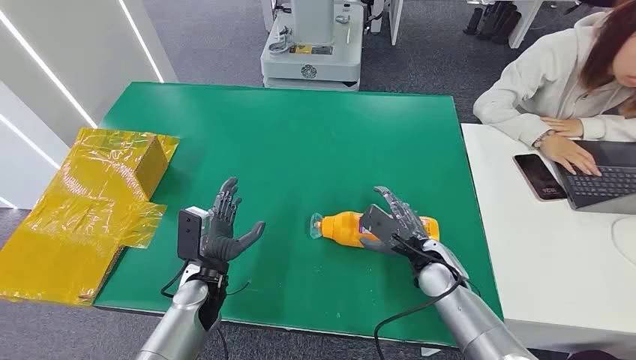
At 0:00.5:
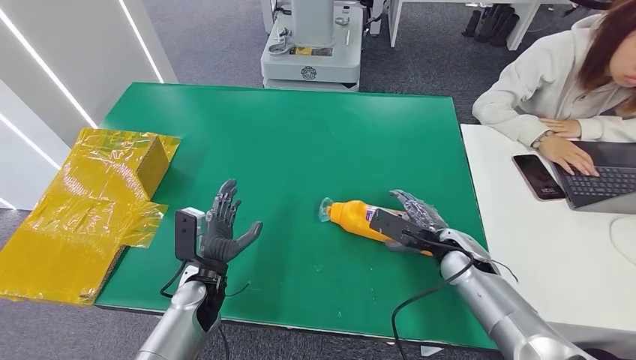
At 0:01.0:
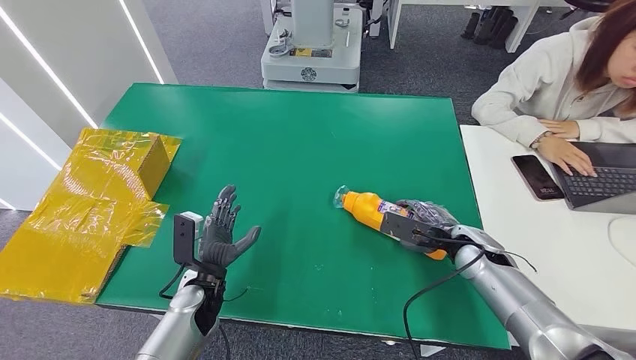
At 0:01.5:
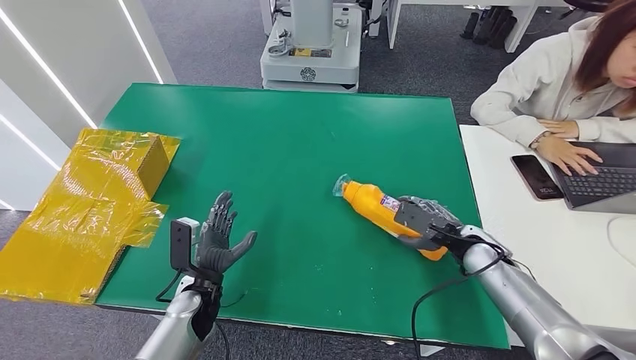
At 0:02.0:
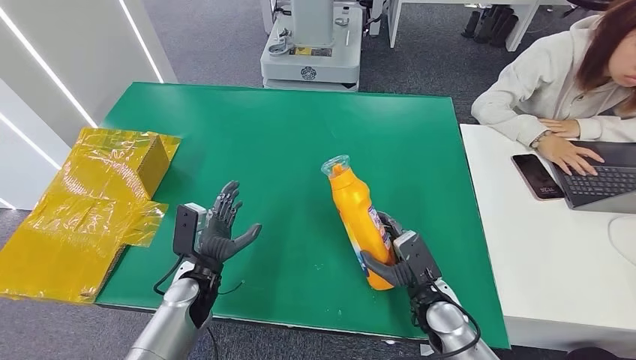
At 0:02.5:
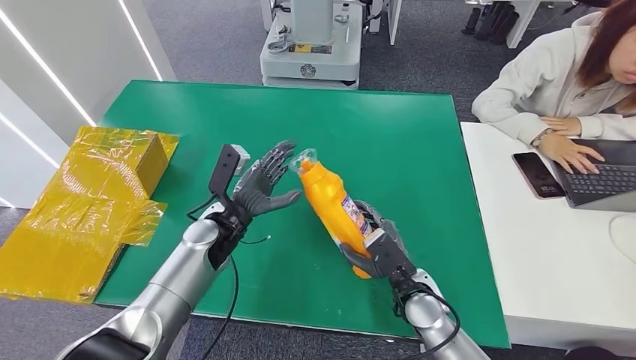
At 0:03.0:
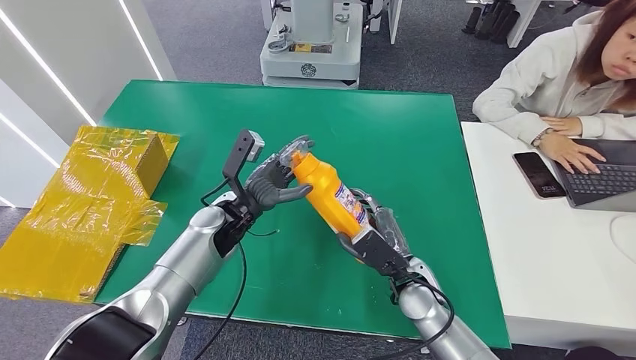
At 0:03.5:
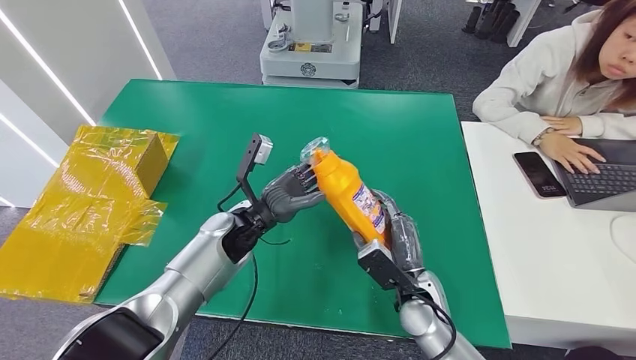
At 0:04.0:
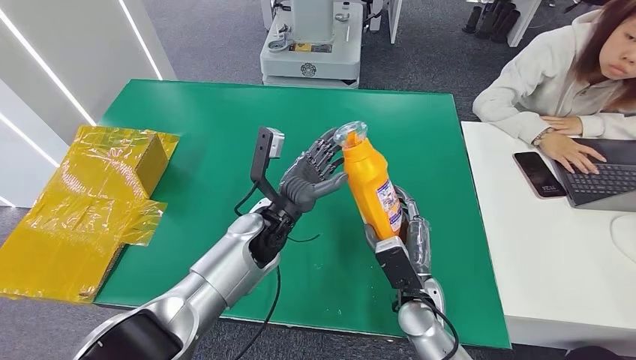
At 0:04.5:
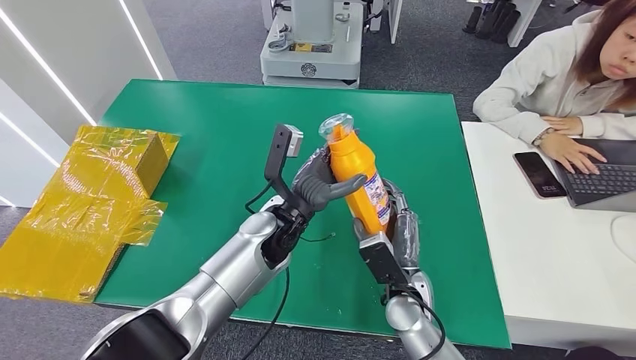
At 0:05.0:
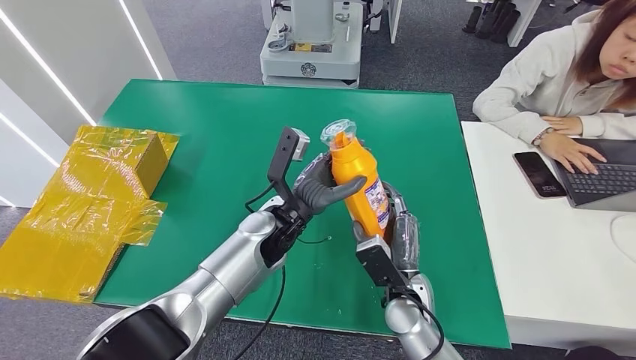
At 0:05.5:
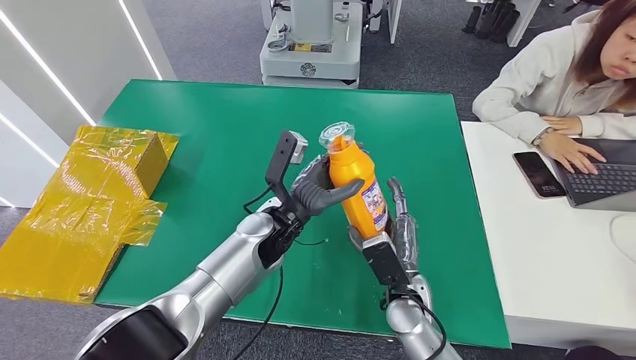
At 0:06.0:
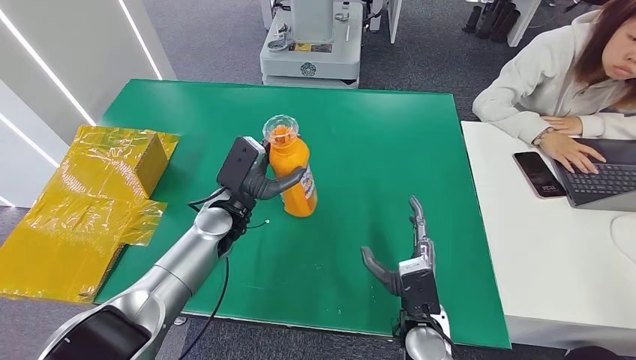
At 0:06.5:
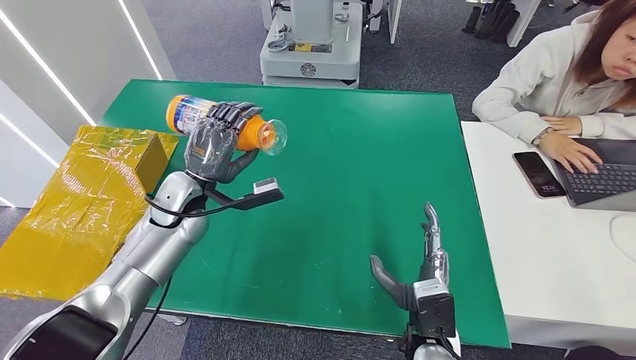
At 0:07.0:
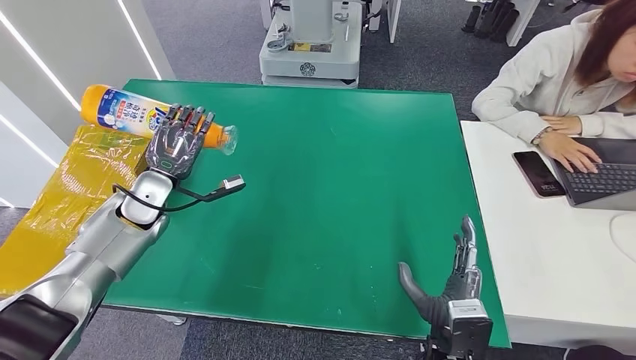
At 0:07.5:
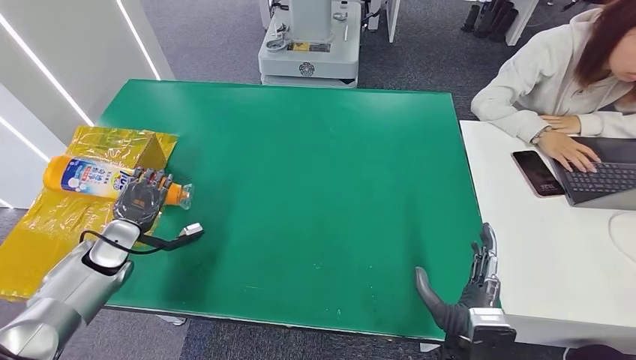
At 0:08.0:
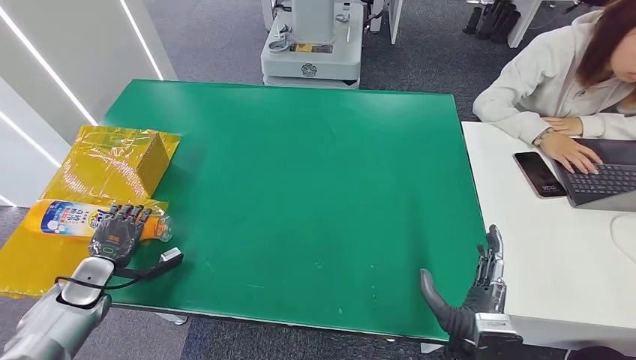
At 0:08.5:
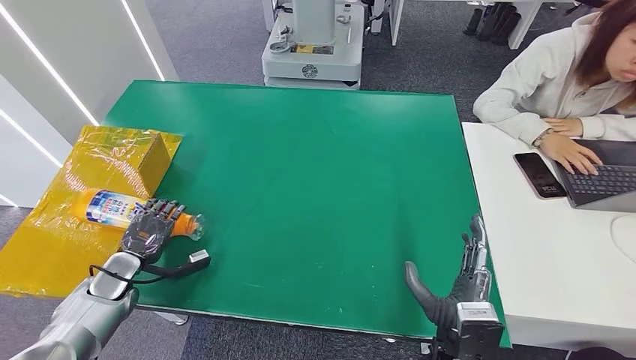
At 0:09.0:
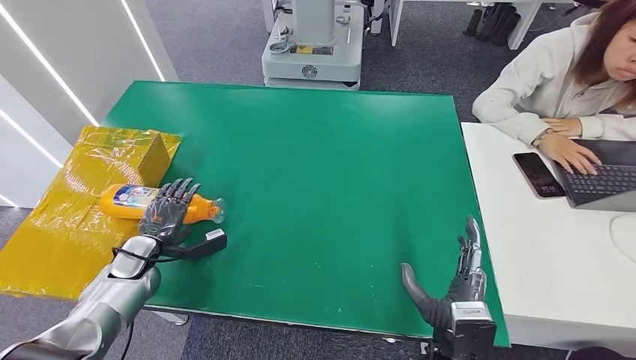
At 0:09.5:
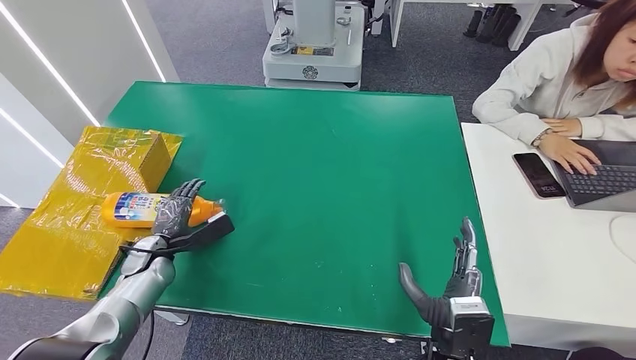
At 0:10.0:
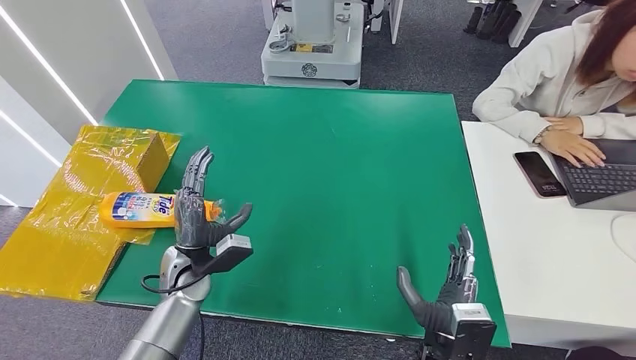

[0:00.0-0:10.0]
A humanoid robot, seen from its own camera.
Step, 0:00.0 to 0:02.5: Pick up the bottle from the table.
Step, 0:03.0 to 0:10.0: Turn the bottle to the front side.
0:04.0 to 0:06.0: The left hand shifts about 10 cm to the left.
0:06.0 to 0:08.0: The left hand heads to the left and downward, covering roughly 30 cm, while the right hand moves backward, about 5 cm.
0:08.0 to 0:10.0: The left hand shifts about 20 cm to the right.

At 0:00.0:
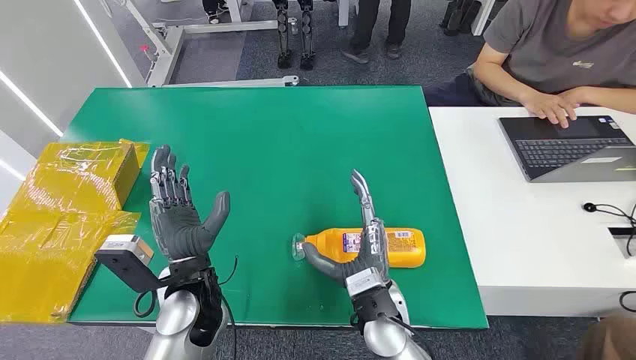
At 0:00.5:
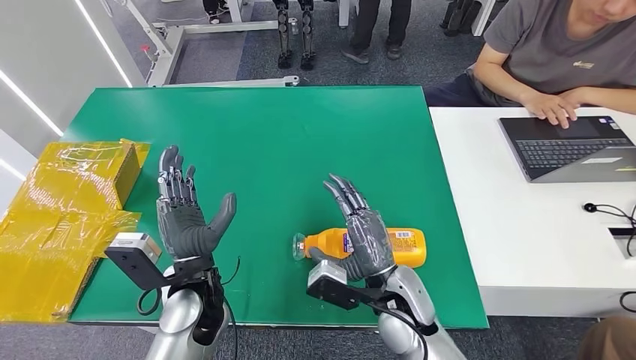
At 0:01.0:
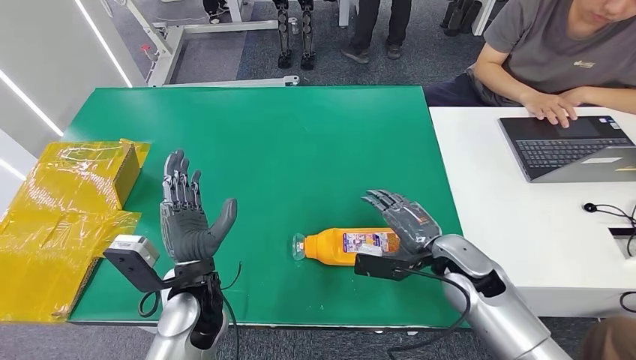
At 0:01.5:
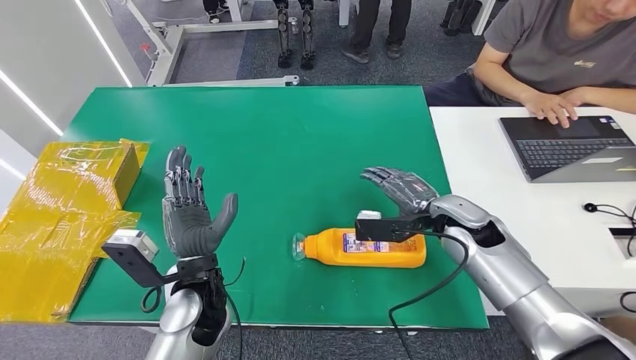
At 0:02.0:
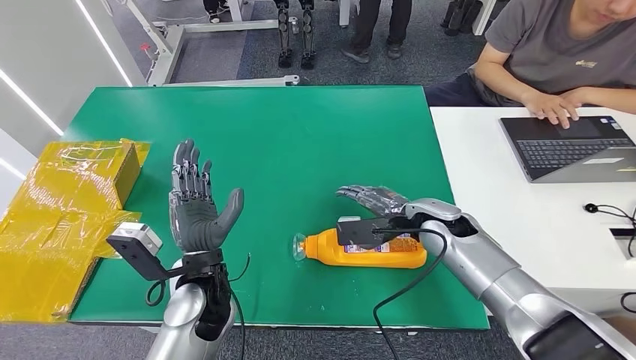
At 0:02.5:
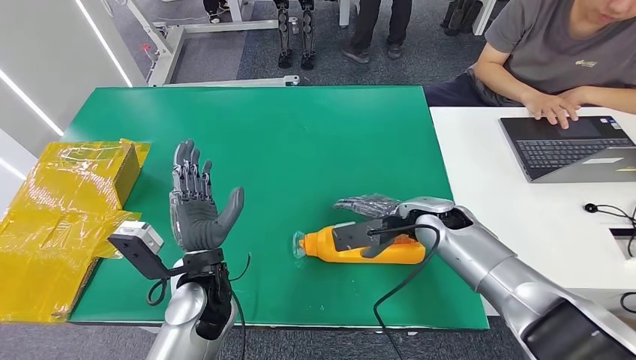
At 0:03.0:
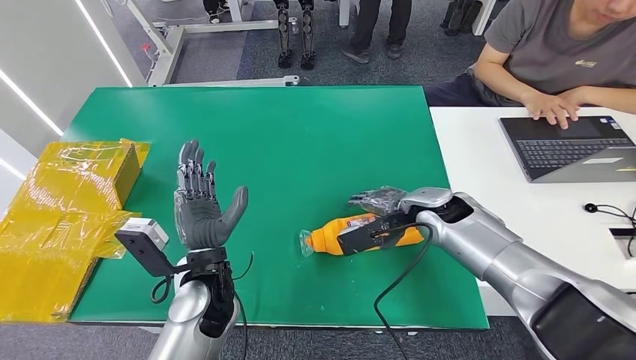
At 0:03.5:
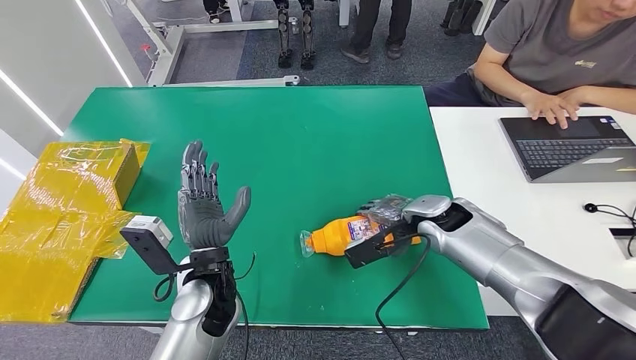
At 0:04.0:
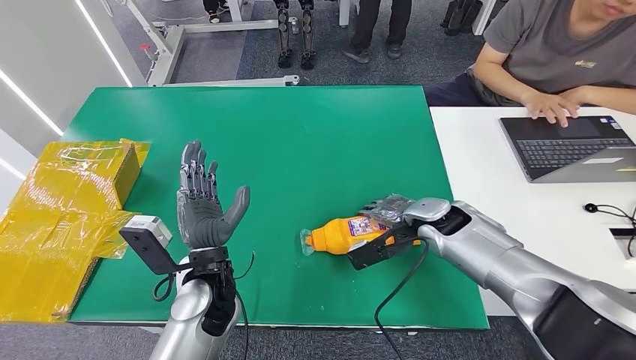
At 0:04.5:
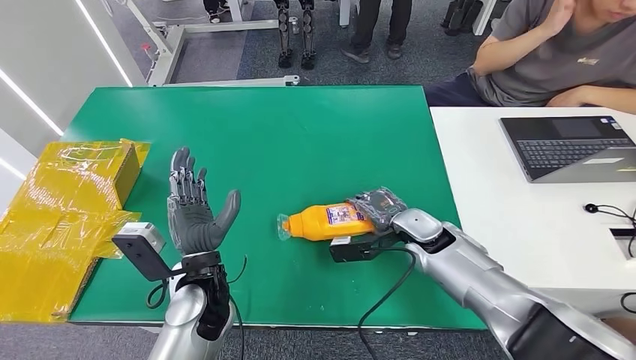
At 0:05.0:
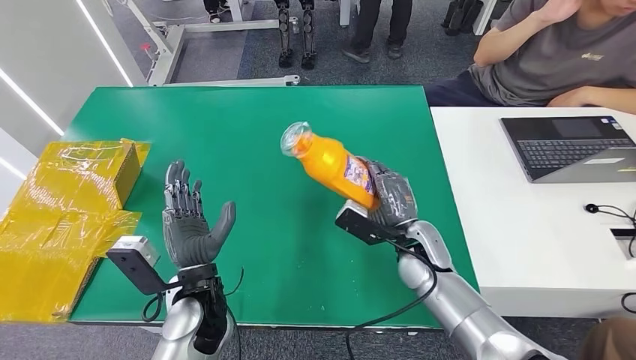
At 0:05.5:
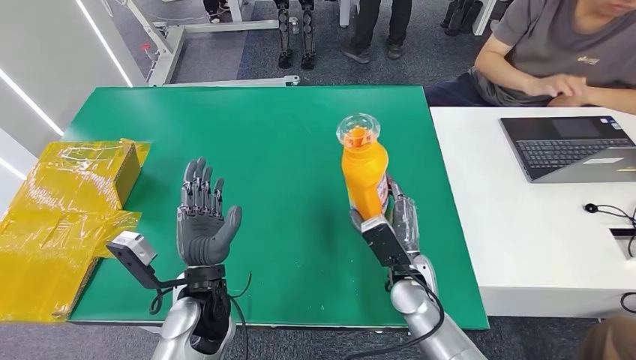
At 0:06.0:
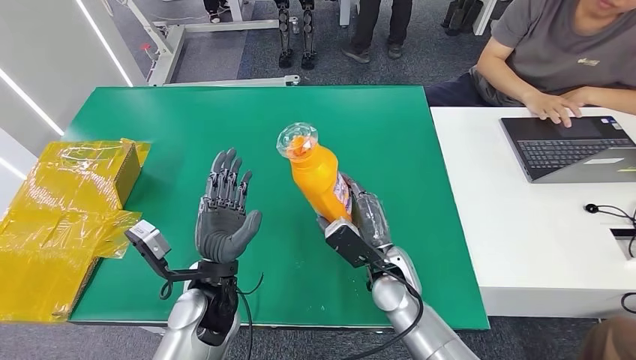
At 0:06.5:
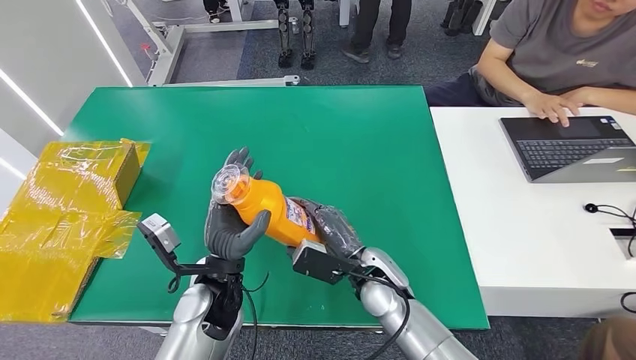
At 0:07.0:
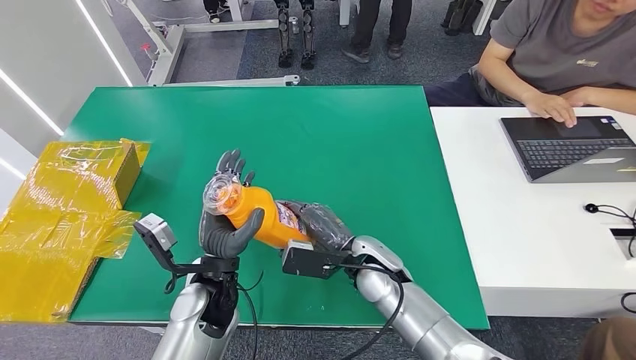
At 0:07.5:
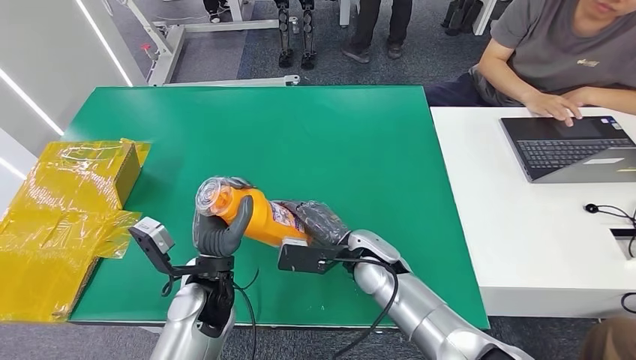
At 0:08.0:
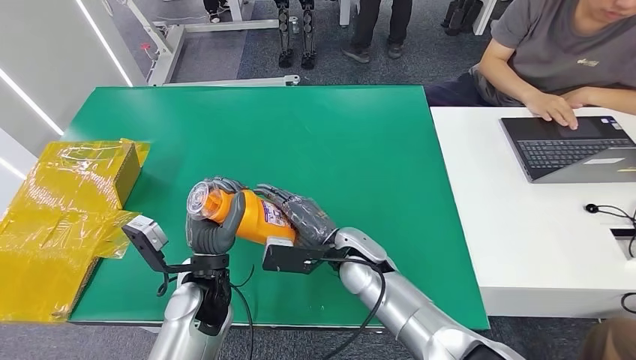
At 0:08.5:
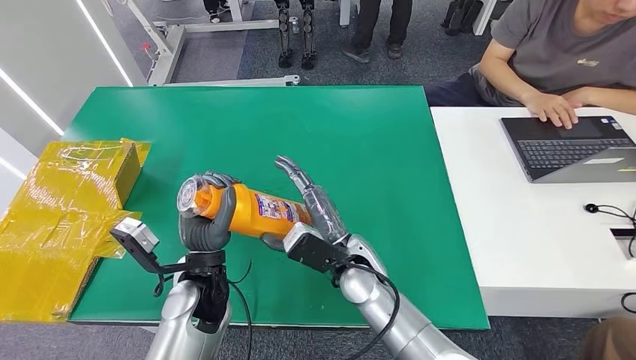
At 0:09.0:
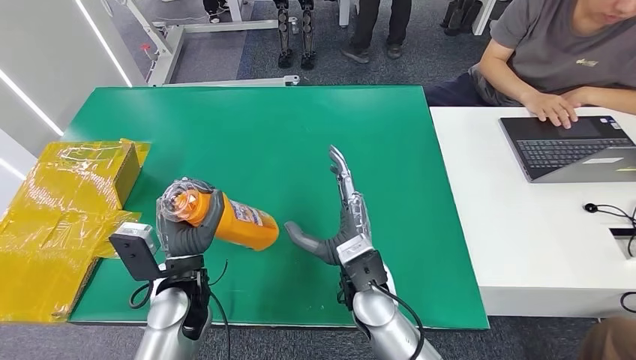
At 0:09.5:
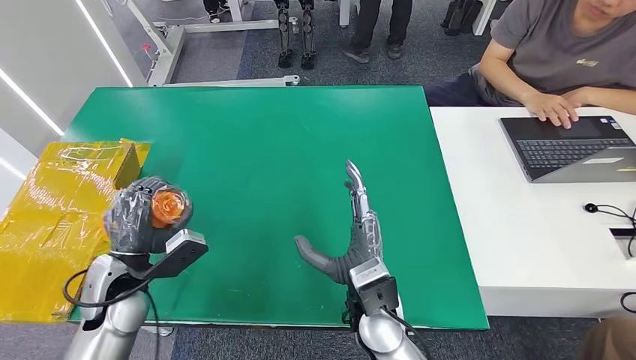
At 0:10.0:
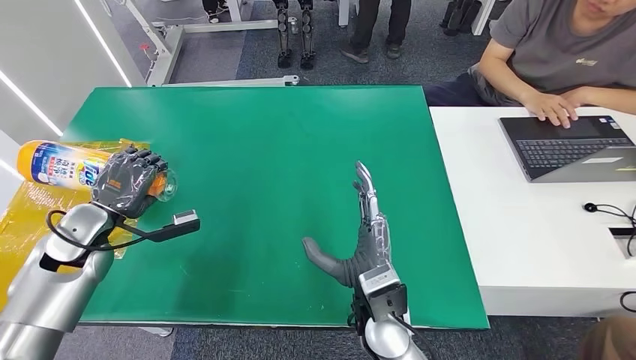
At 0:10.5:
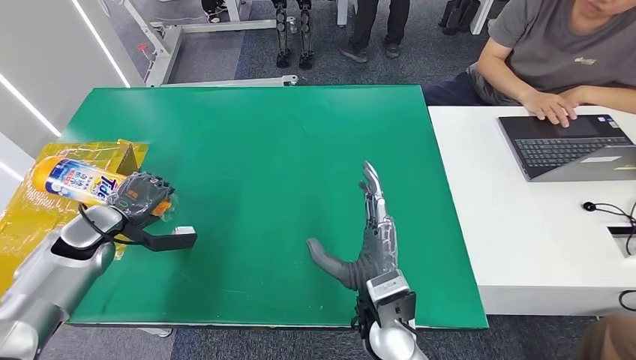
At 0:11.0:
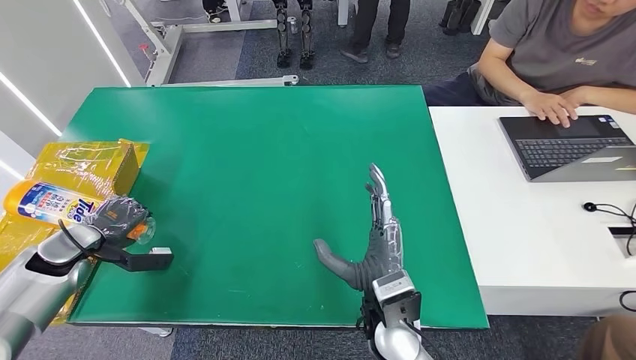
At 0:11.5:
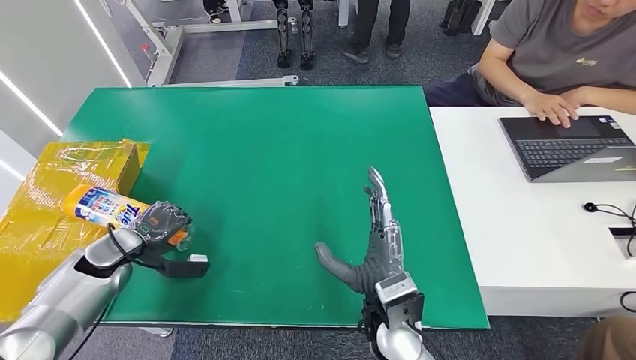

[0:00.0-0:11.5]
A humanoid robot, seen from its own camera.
Step, 0:00.0 to 0:05.0: Pick up the bottle from the table.
Step, 0:06.0 to 0:11.5: Turn the bottle to the front side.
0:04.0 to 0:06.0: The right hand moves to the left and backward, approximately 15 cm.
0:07.5 to 0:09.5: The left hand heads to the left, covering approximately 15 cm; the right hand shifts about 10 cm backward.
0:09.5 to 0:11.5: The left hand heads to the left, forward and downward, covering some 15 cm.
